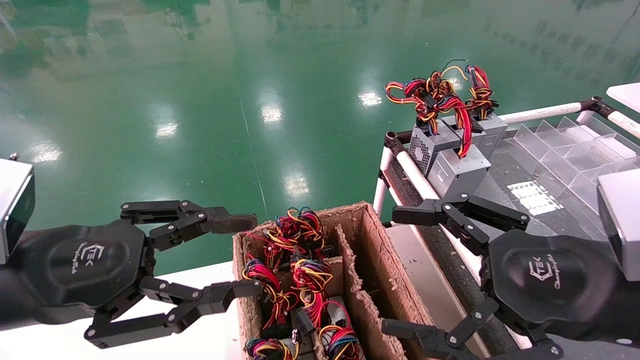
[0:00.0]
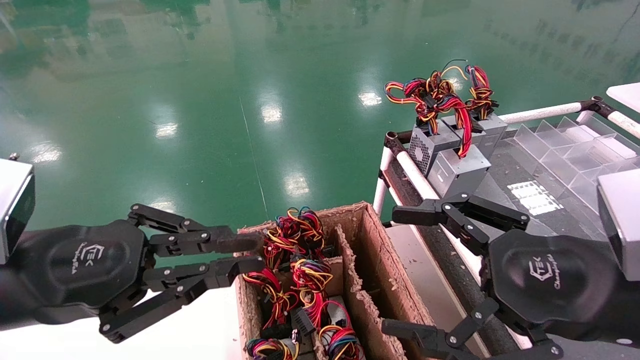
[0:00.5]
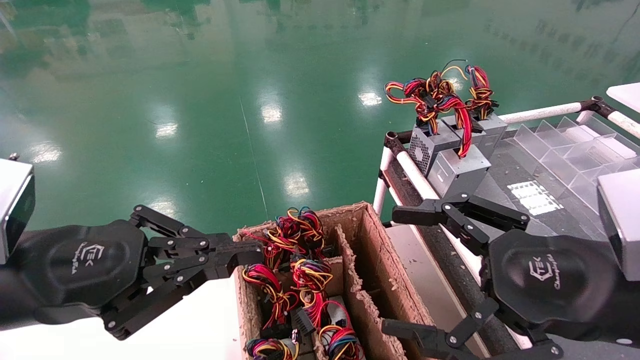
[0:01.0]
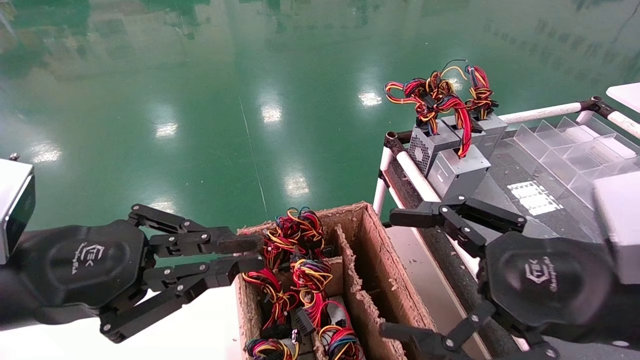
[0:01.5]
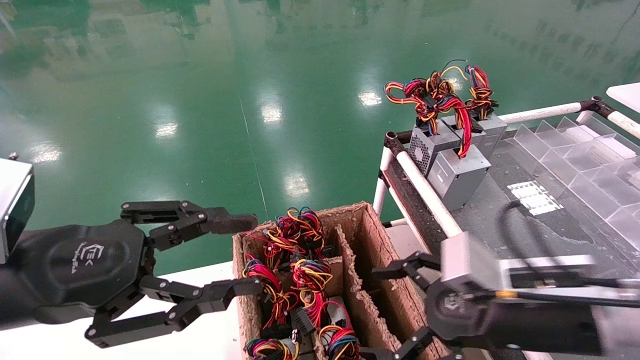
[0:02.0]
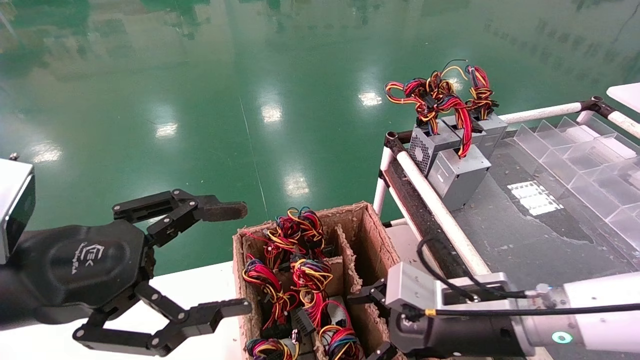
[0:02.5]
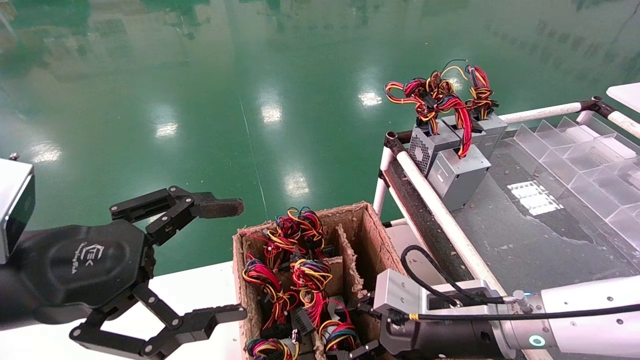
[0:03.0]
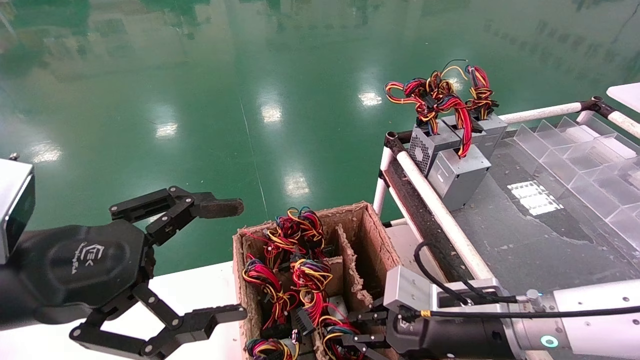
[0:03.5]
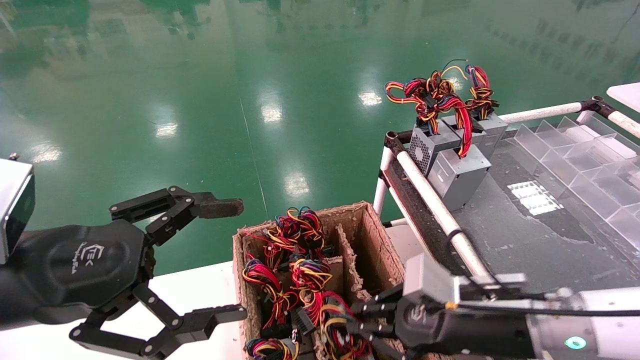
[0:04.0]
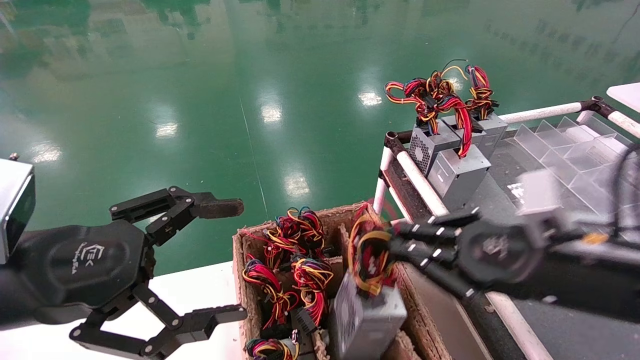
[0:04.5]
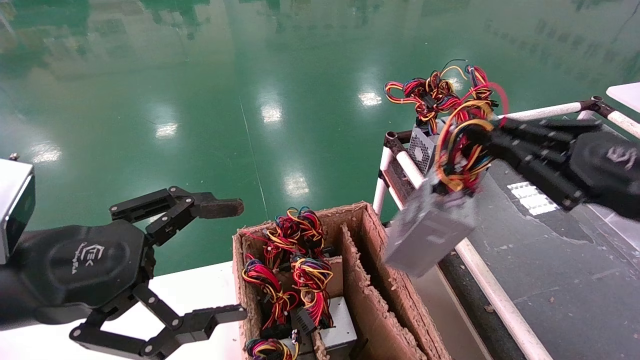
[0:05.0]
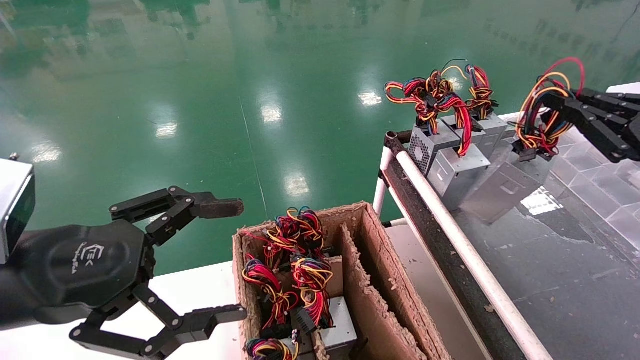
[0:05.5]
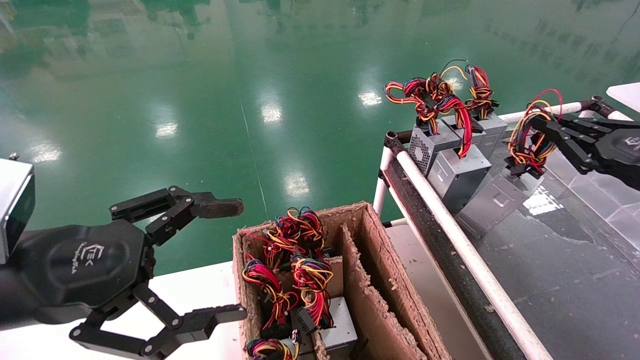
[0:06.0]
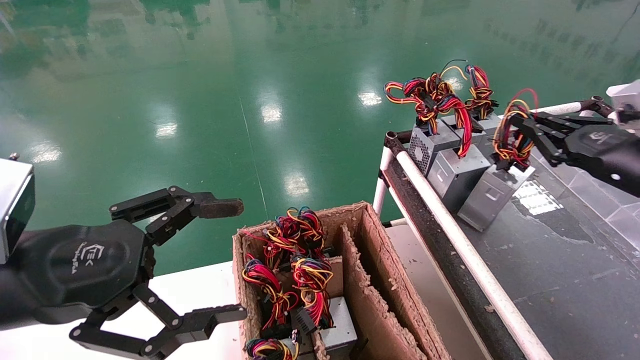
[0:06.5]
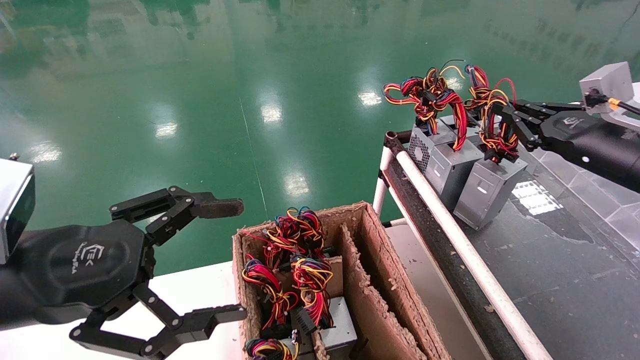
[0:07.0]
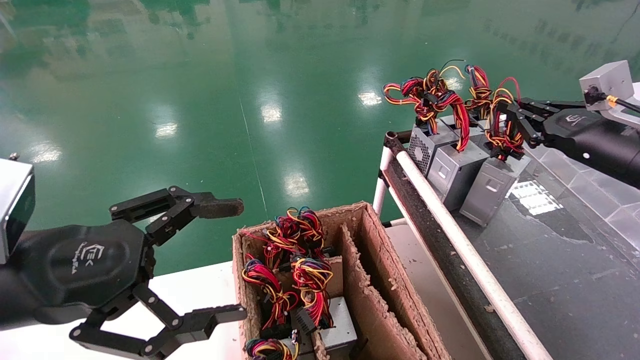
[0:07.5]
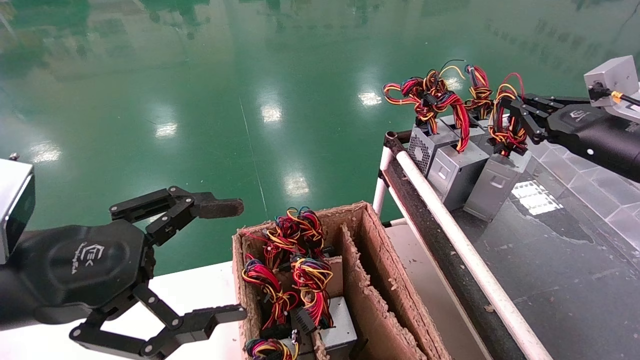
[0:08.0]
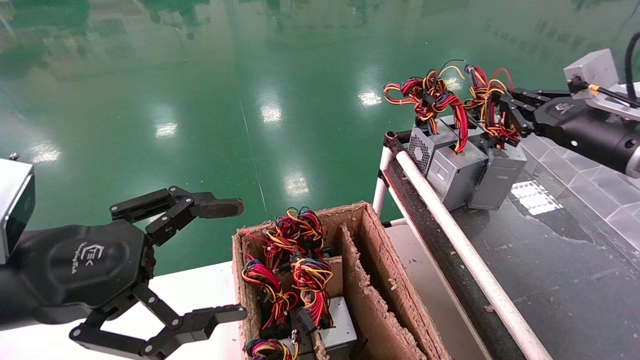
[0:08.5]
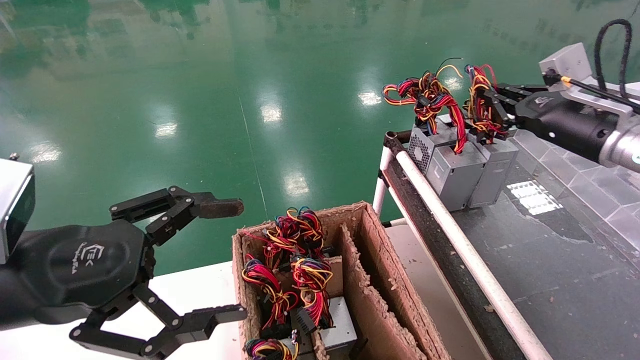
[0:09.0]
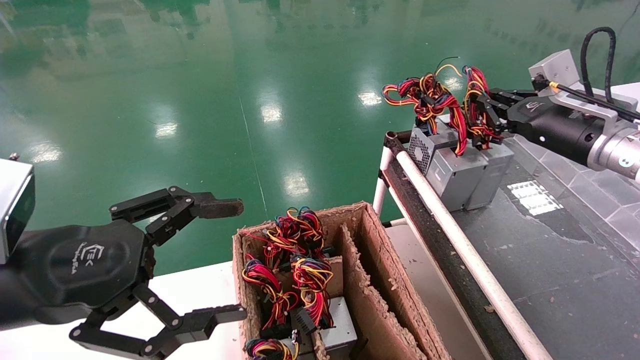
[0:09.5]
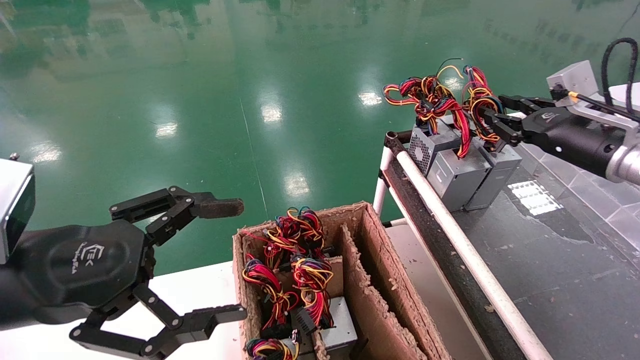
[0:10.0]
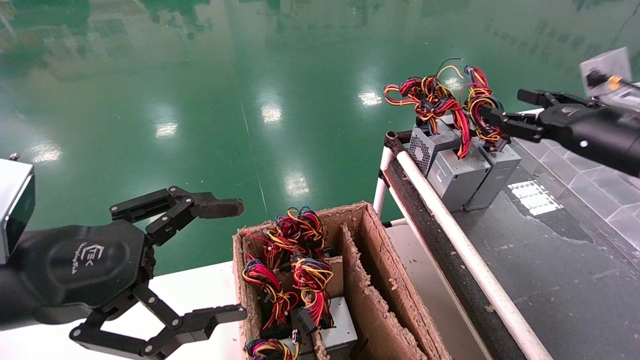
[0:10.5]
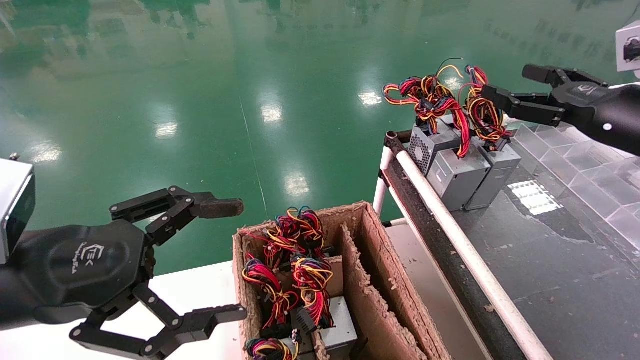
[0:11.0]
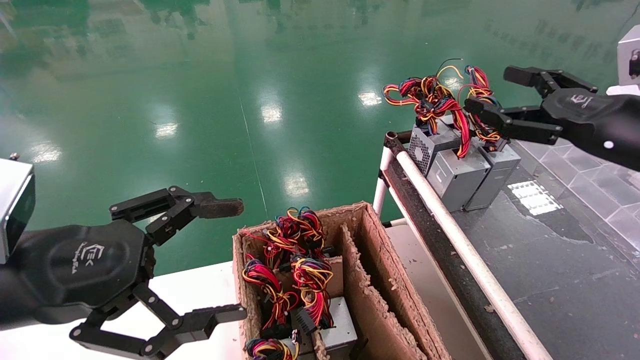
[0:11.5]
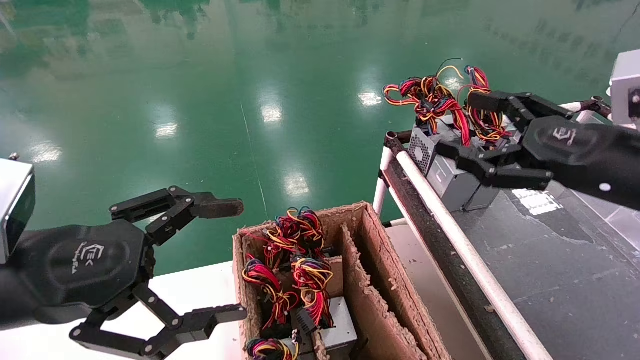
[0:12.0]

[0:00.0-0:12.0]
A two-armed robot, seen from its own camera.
Step, 0:01.0 to 0:05.0: Grab and lift the power supply from the large box.
Step, 0:05.5 to 0:09.5: Place the power supply on the operating table.
0:00.0 to 0:02.0: The right gripper shifts roughly 10 cm forward and downward. The left gripper closes, then opens again.
0:02.0 to 0:04.0: The right gripper closes up; the left gripper opens up.
0:04.0 to 0:06.0: The right gripper is displaced to the right and upward by approximately 25 cm.
0:06.0 to 0:08.0: The right gripper is displaced forward by roughly 5 cm.
0:08.0 to 0:10.0: The grippers move only a little.
0:10.0 to 0:12.0: The right gripper goes approximately 15 cm backward, and opens up.

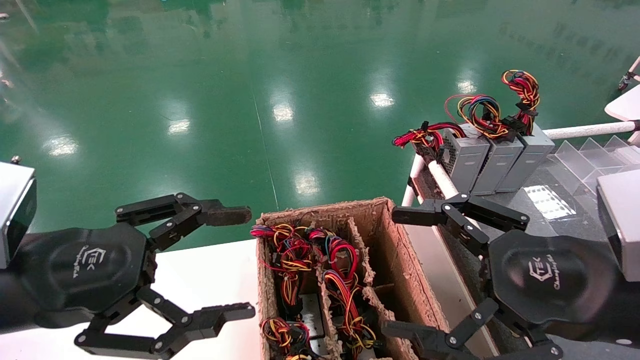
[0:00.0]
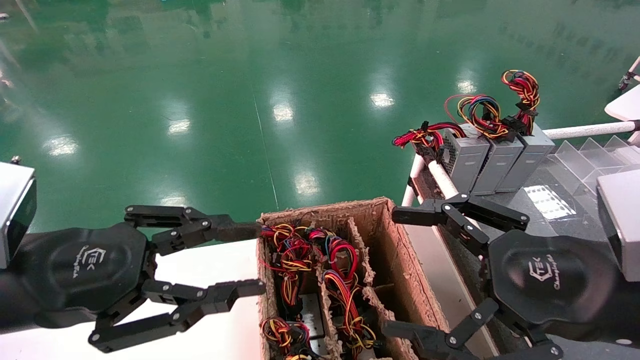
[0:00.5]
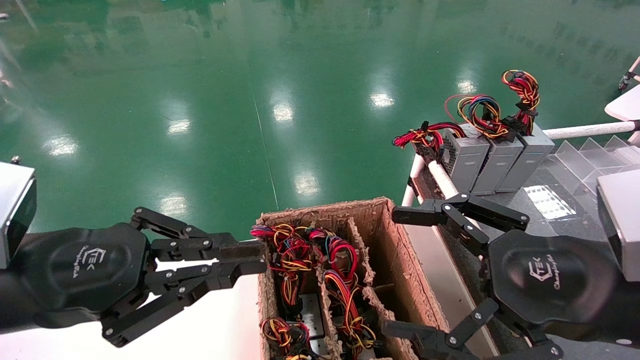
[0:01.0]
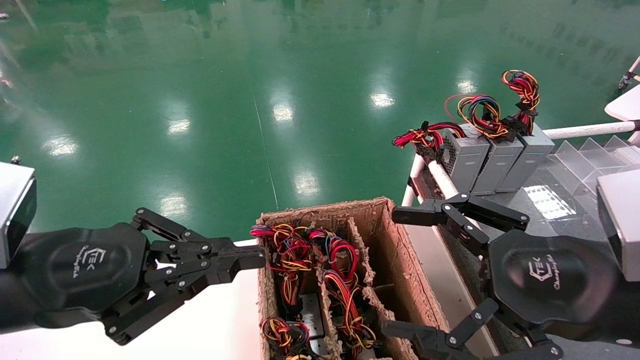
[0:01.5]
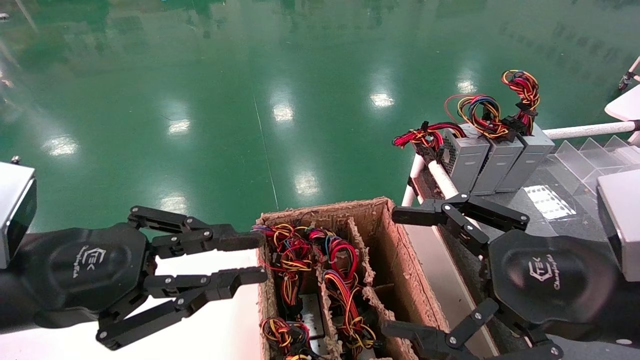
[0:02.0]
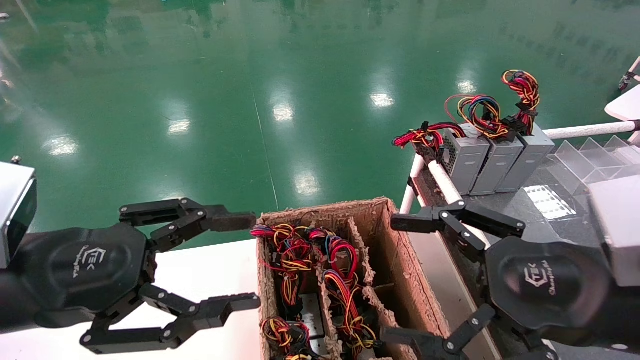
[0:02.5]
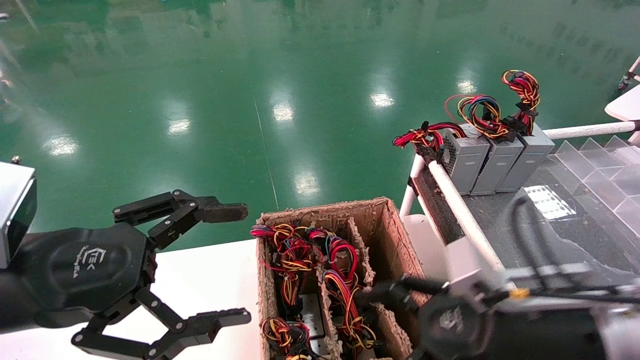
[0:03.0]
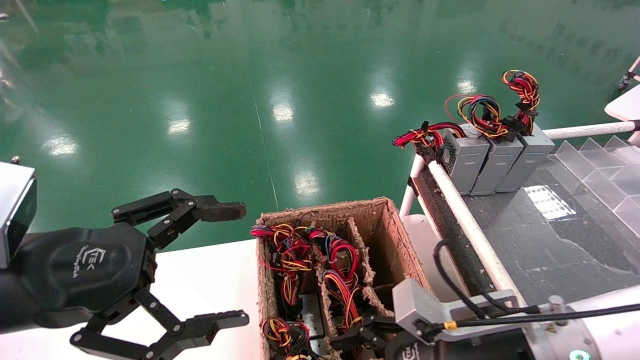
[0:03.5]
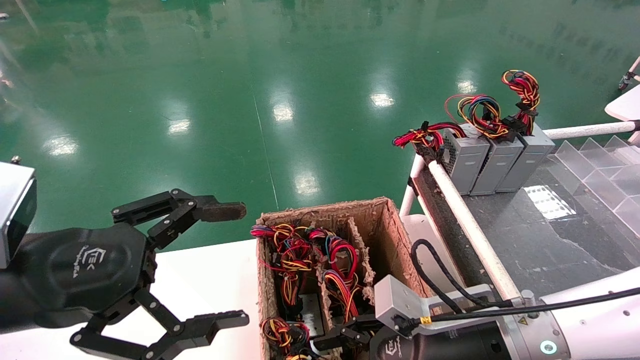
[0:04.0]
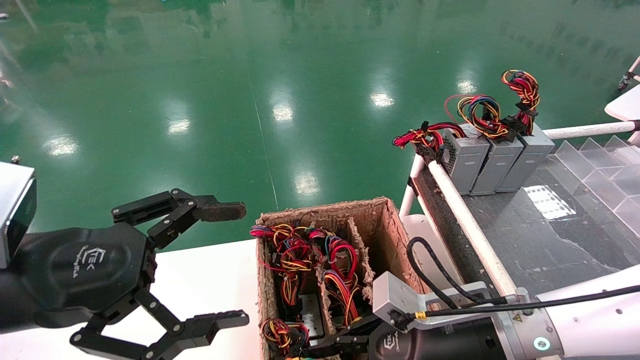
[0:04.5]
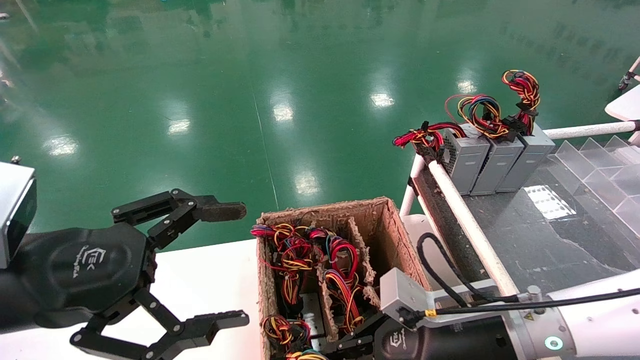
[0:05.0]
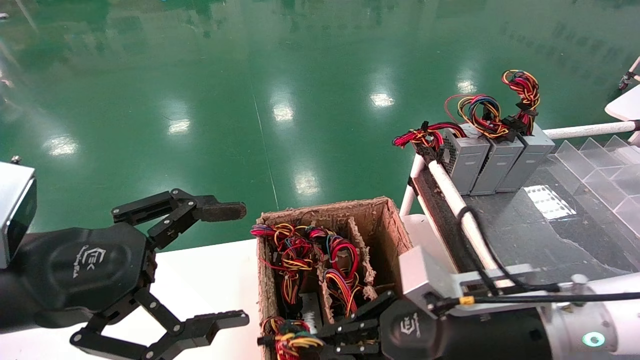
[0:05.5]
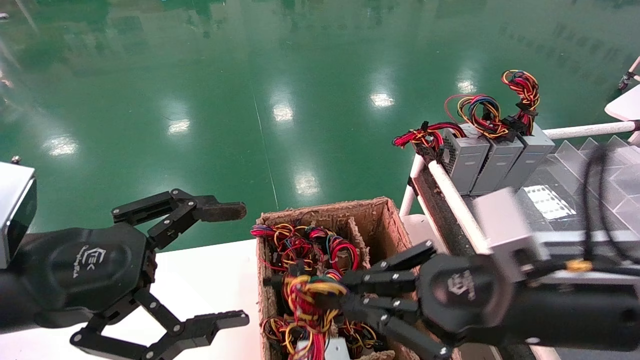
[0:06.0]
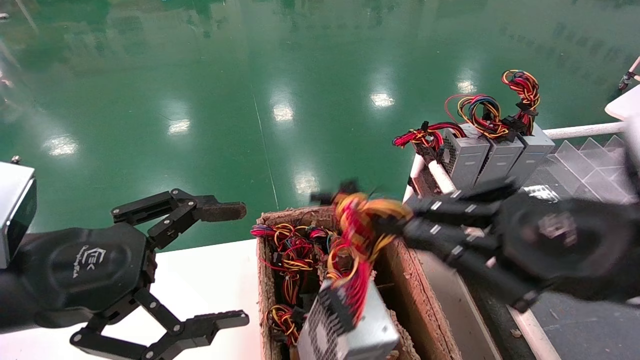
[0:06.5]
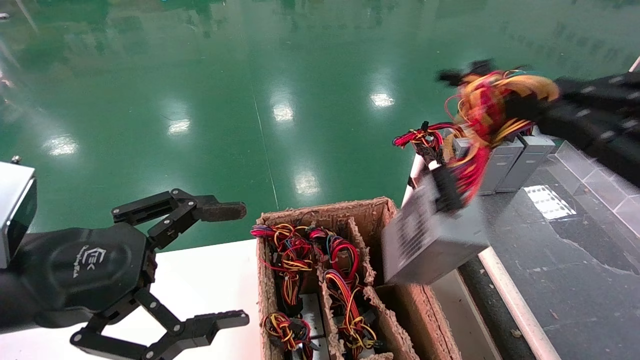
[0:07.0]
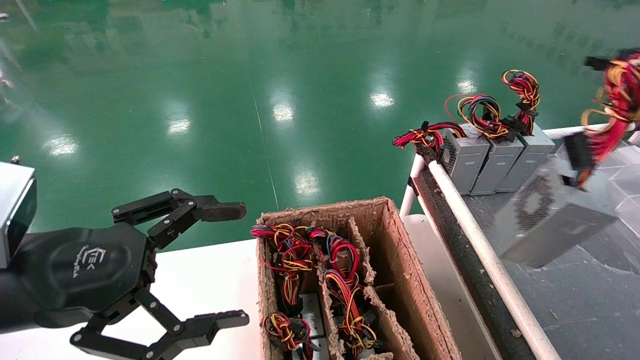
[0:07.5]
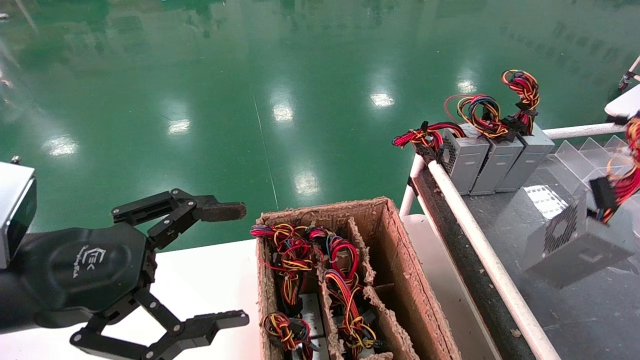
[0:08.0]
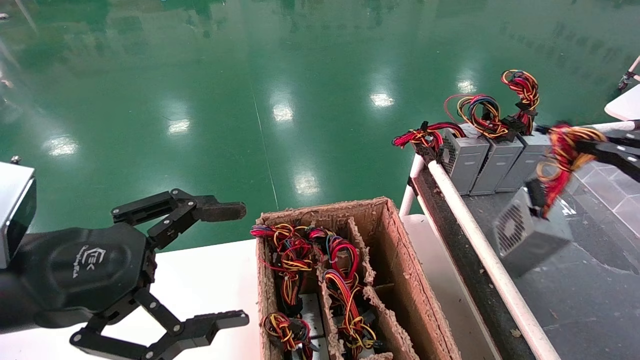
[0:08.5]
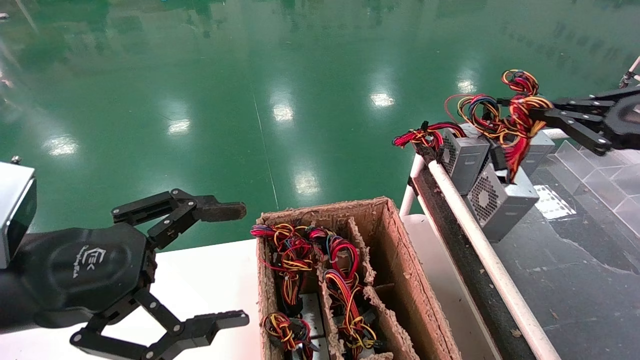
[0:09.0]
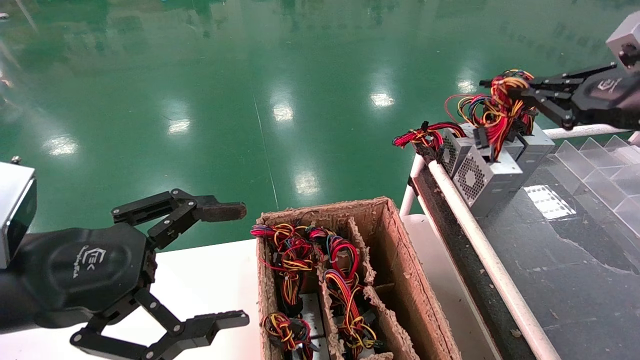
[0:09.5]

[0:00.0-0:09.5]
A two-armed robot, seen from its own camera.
Step, 0:01.5 to 0:05.0: Grab and lift the power supply from the large box.
0:00.0 to 0:02.0: The left gripper closes.
0:02.0 to 0:04.0: The right gripper is displaced downward, forward and to the left by roughly 15 cm, while the left gripper opens.
0:04.0 to 0:05.5: The right gripper moves about 5 cm, and closes up.
0:05.5 to 0:07.5: The right gripper travels to the right and upward by approximately 30 cm.
0:07.5 to 0:09.5: The right gripper is displaced forward by approximately 20 cm.
